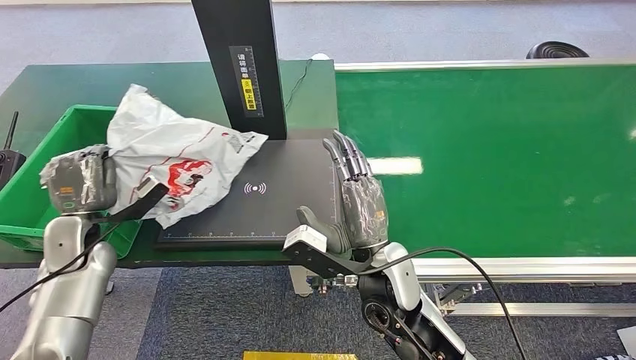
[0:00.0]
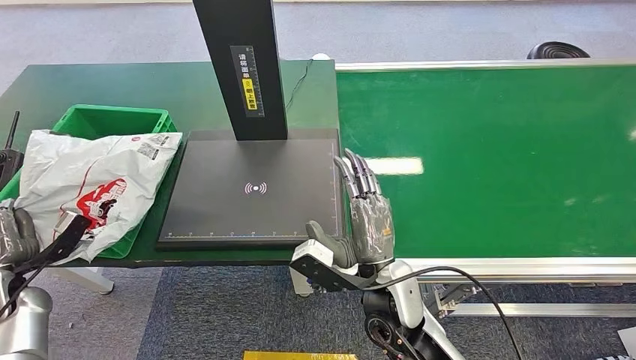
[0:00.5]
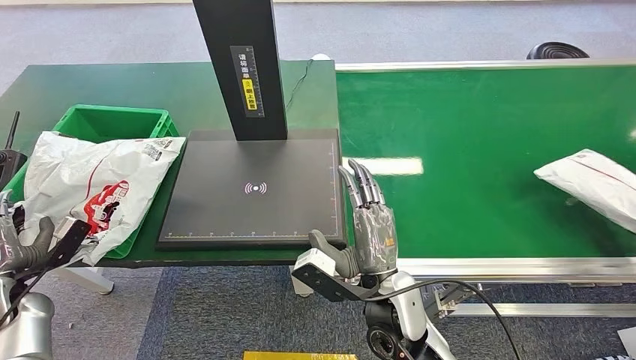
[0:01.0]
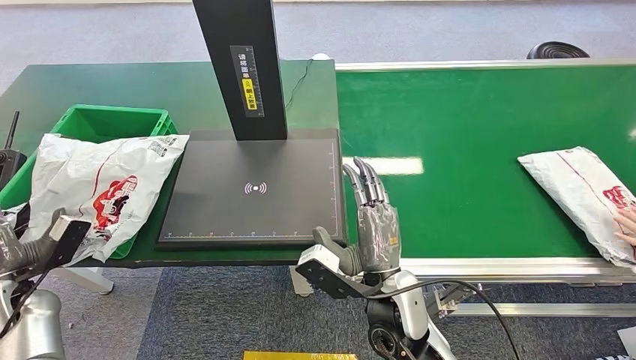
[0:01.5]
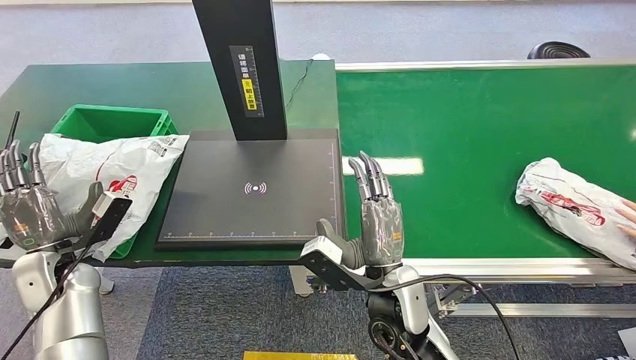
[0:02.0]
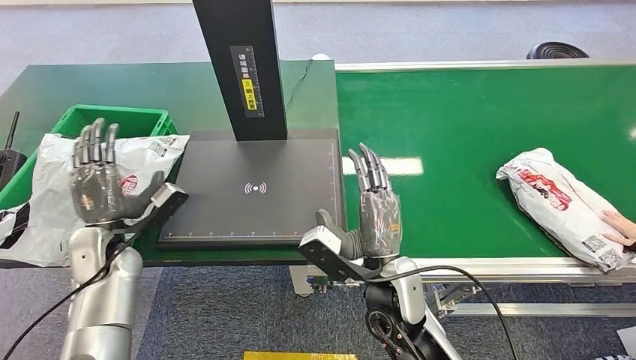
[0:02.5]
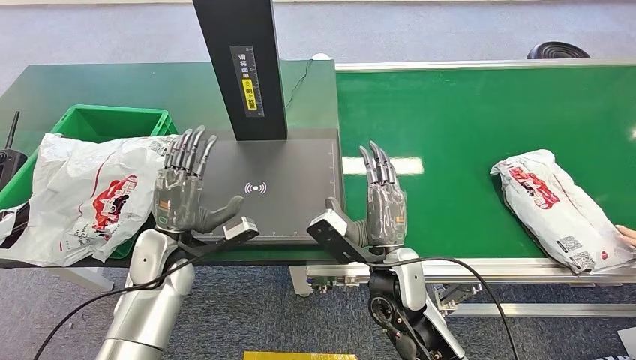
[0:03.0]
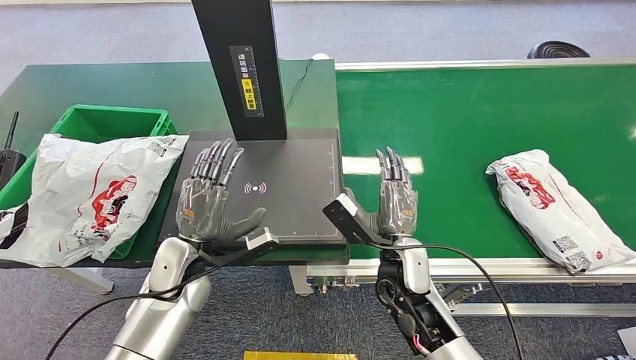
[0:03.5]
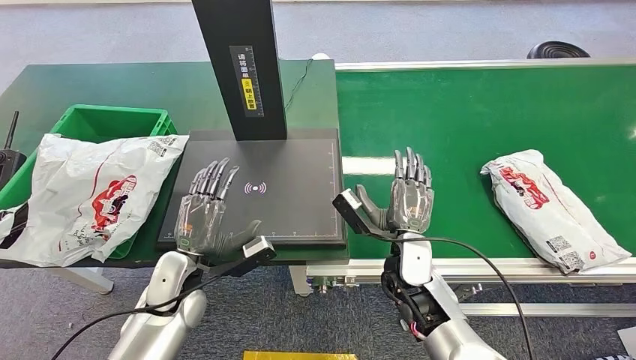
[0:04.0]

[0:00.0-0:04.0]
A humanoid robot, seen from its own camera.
Step, 0:00.0 to 0:04.0: Place the package into the parcel locker.

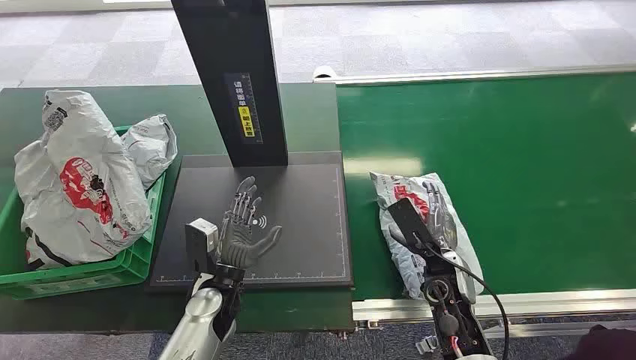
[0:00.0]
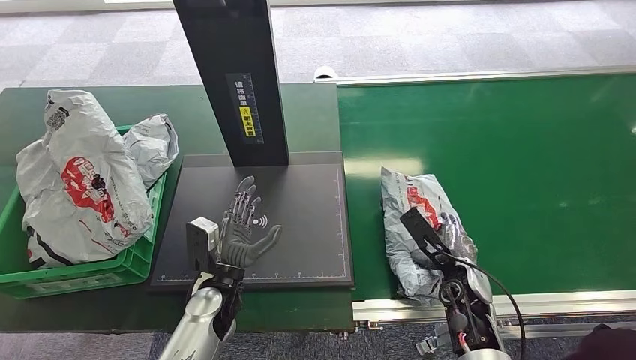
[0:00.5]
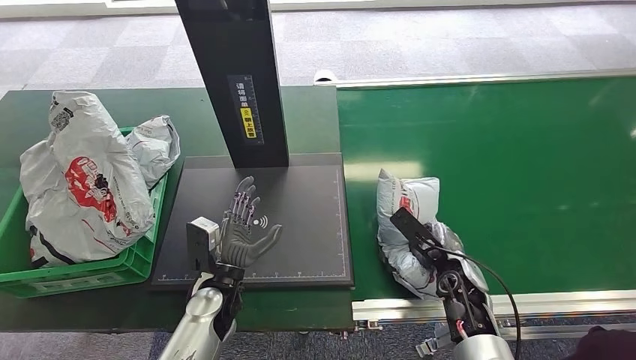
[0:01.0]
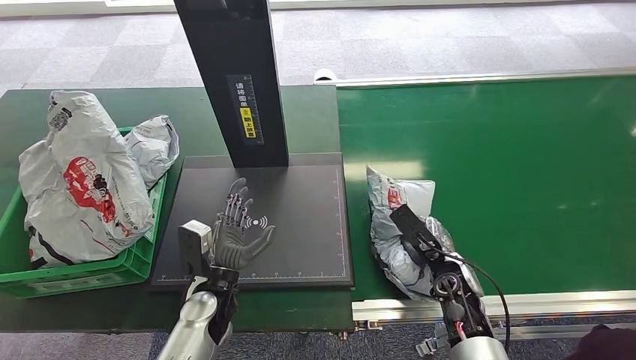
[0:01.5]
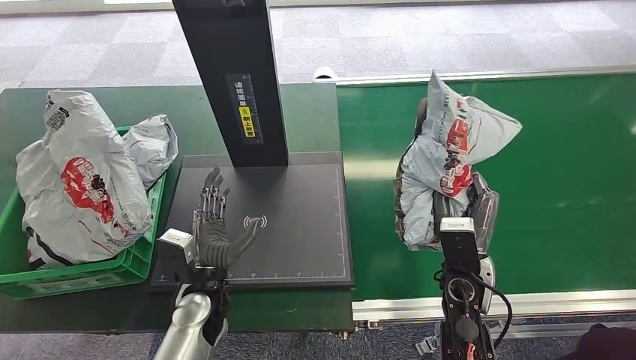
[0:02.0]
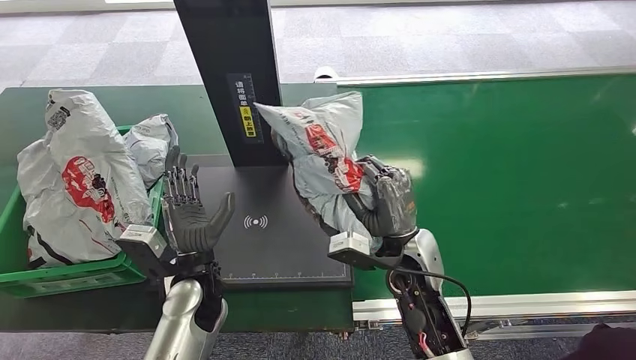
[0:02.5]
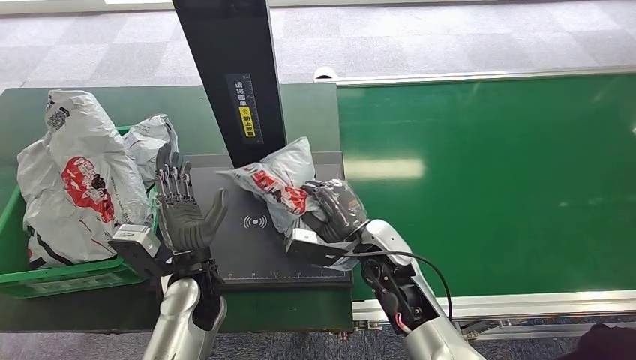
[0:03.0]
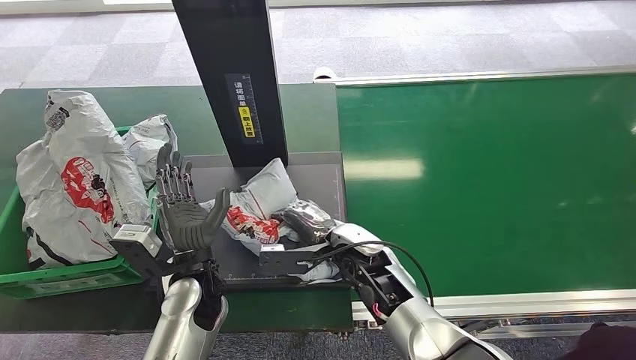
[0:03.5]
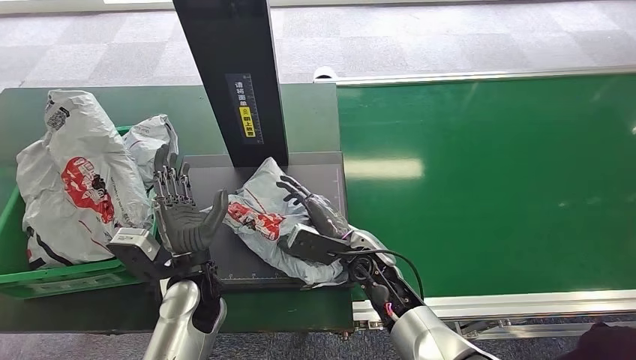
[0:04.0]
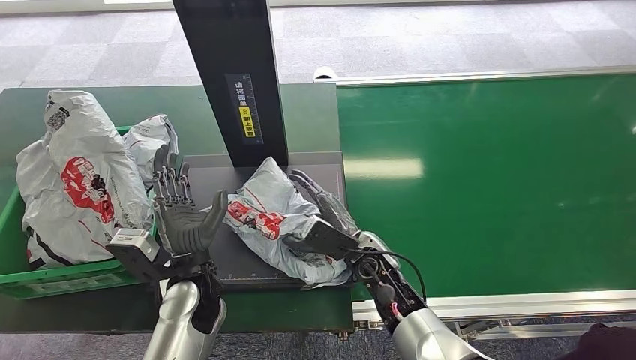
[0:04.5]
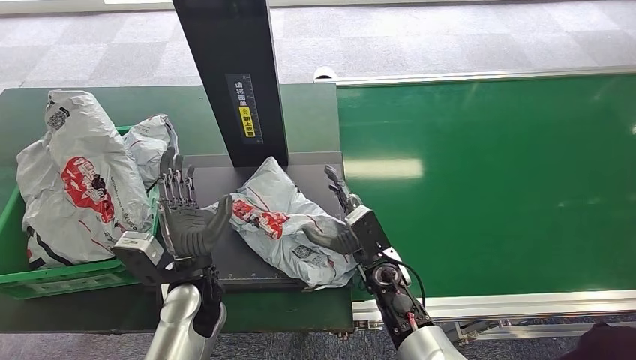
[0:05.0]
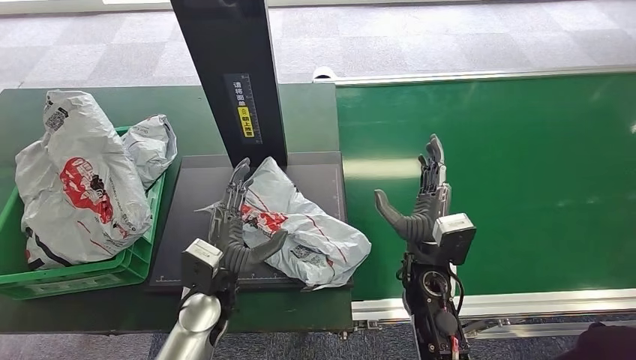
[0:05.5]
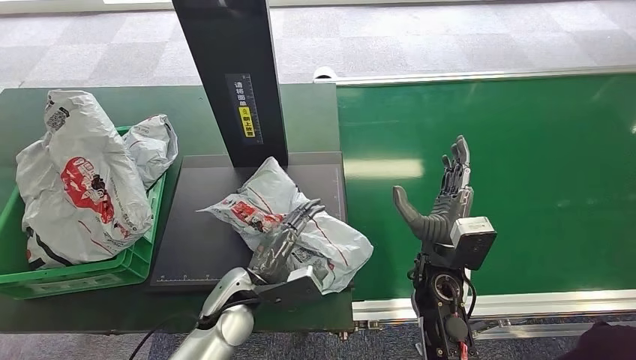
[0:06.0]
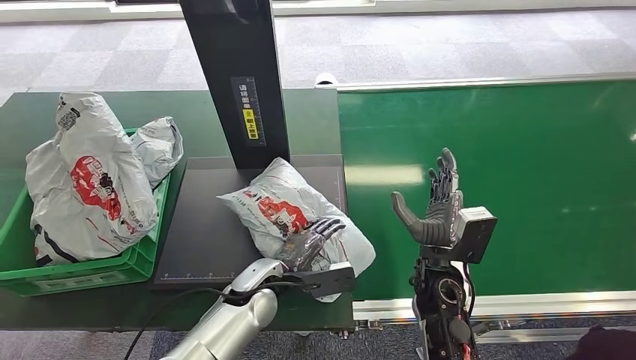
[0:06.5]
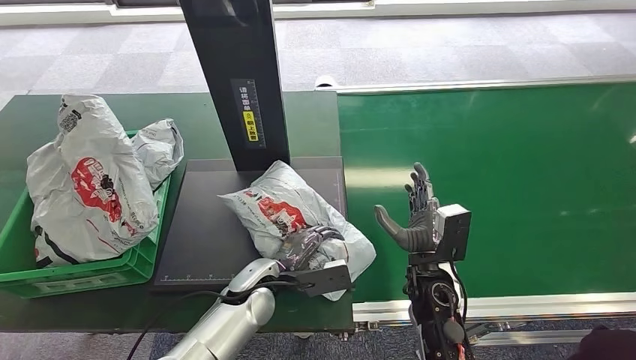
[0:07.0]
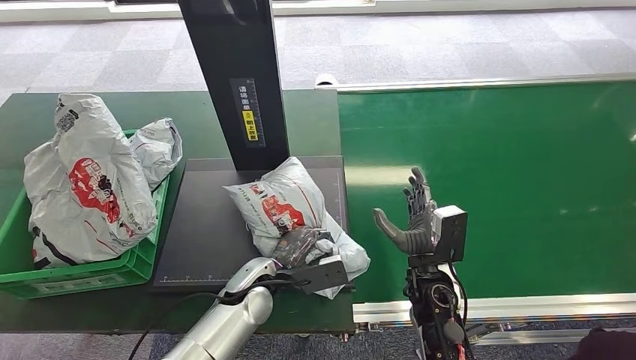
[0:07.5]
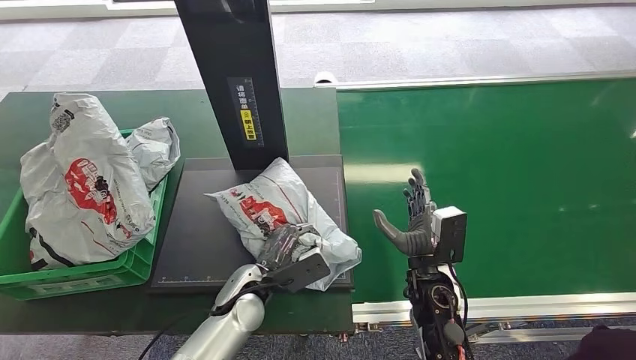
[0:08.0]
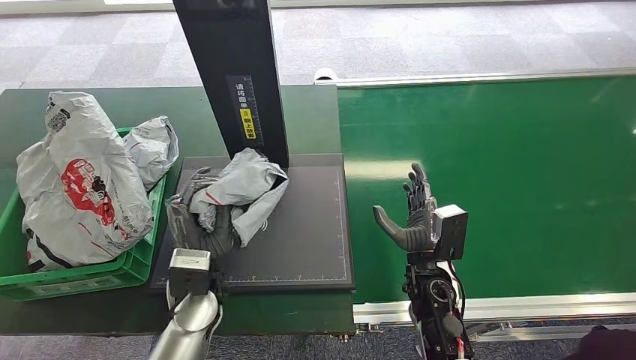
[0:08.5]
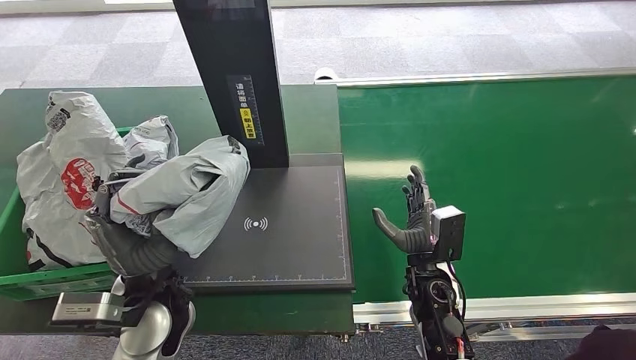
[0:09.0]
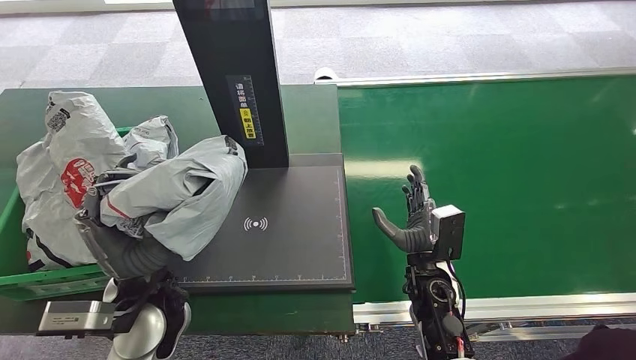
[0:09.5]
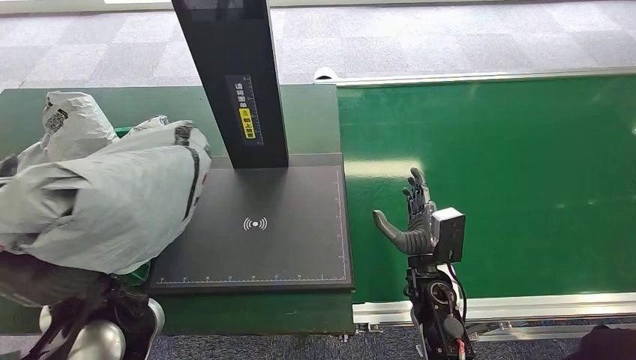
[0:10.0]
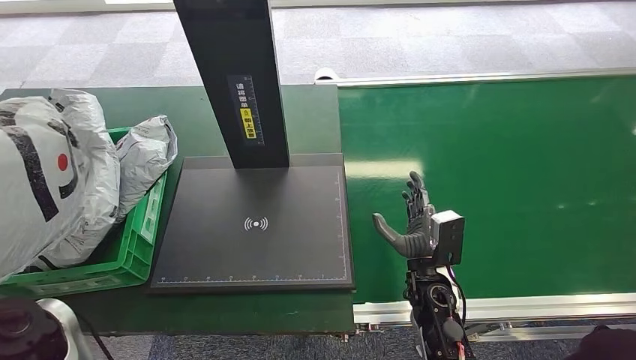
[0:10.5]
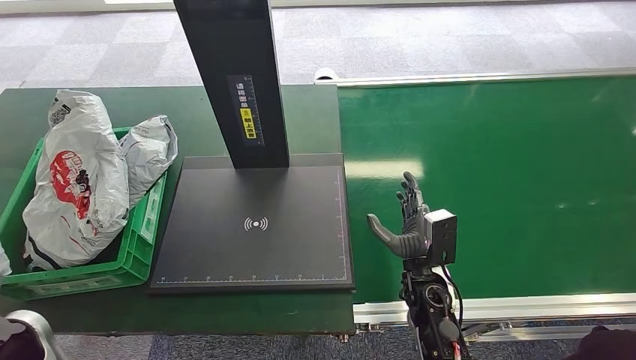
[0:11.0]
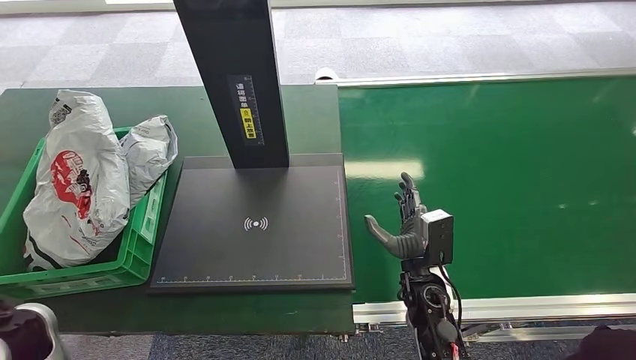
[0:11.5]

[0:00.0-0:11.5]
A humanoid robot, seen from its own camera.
Step, 0:00.0 to 0:02.5: Pick up the package from the conveyor belt.
Step, 0:03.0 to 0:04.5: Place the package onto the inbound machine.
Step, 0:06.0 to 0:08.5: Pick up the package from the inbound machine.
0:02.0 to 0:04.0: The right hand goes approximately 10 cm to the left.
0:04.0 to 0:06.0: The right hand is displaced to the right by some 10 cm; the left hand ends up roughly 5 cm from where it was.
0:09.5 to 0:11.5: The left hand is displaced to the left and upward by approximately 15 cm.

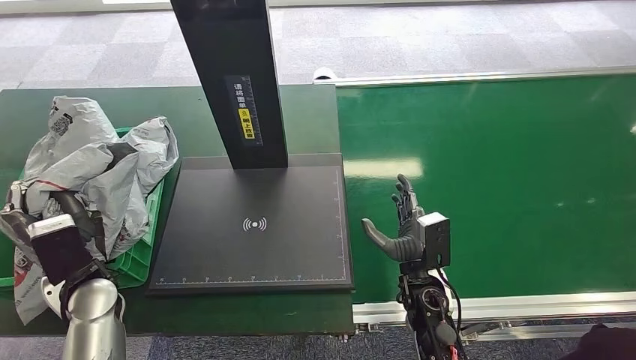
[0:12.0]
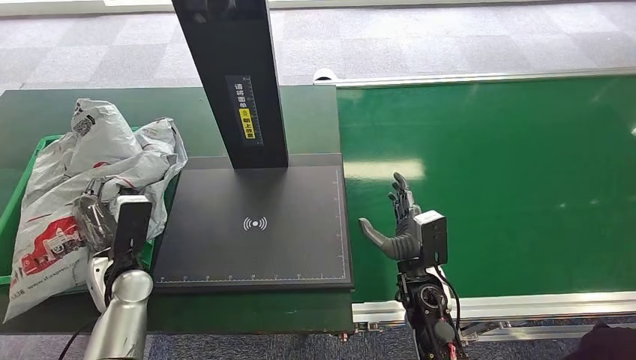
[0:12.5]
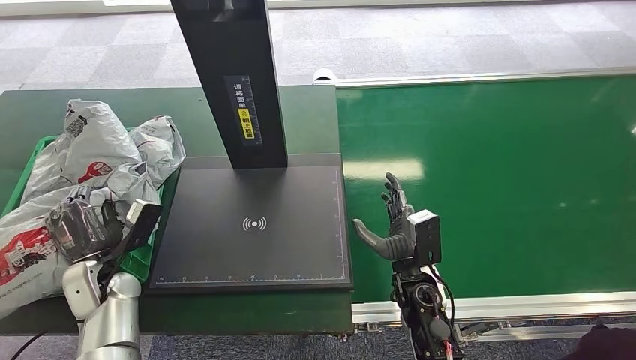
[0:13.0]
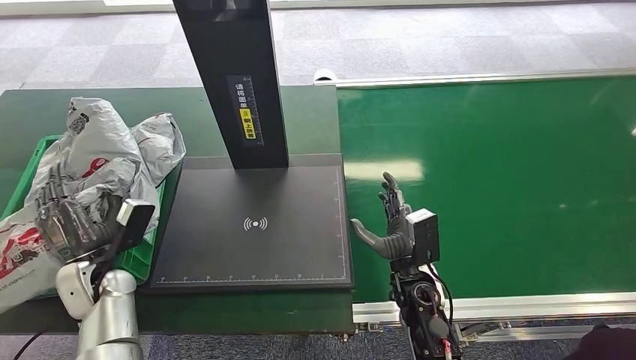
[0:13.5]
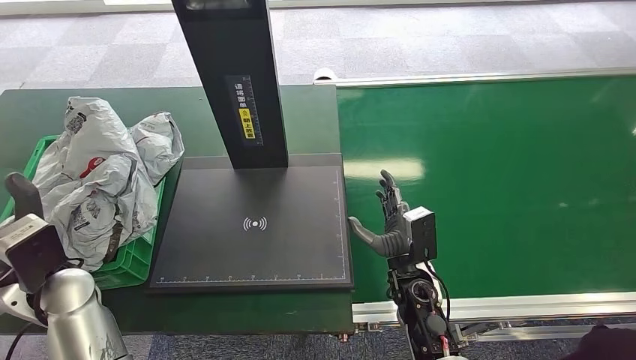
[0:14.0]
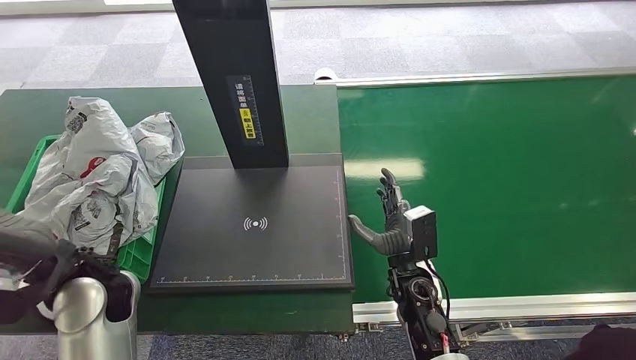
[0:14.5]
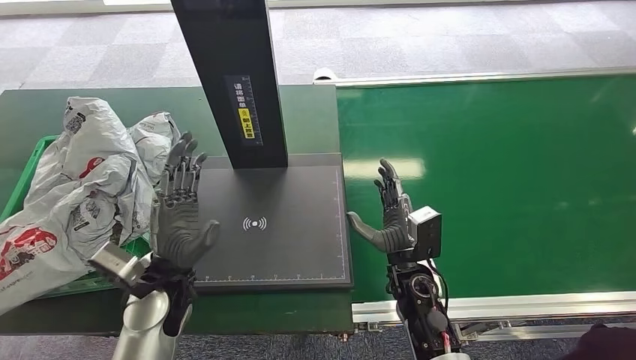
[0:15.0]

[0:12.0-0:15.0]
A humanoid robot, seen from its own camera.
Step, 0:12.0 to 0:15.0: Place the package into the parcel locker.
0:12.0 to 0:13.5: The left hand changes place by approximately 5 cm.
0:13.5 to 0:15.0: The left hand shifts roughly 15 cm to the right.

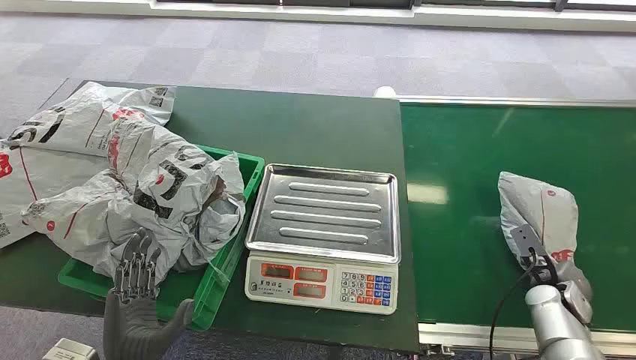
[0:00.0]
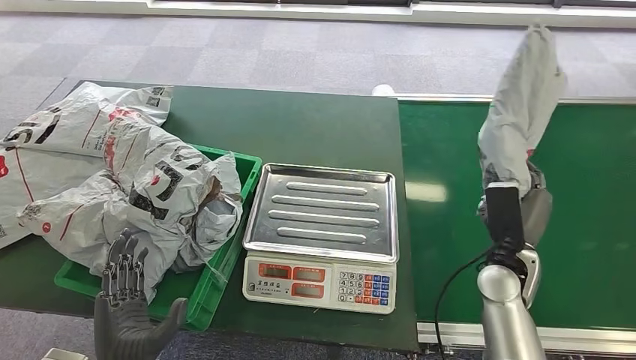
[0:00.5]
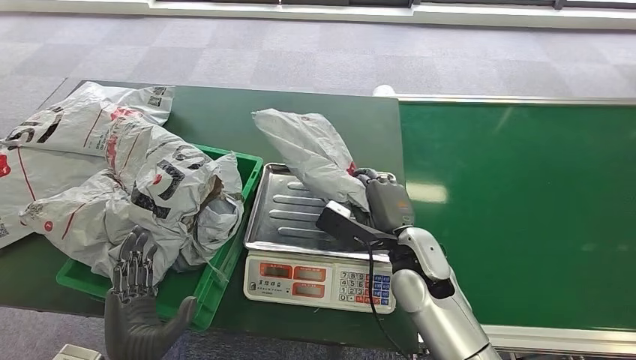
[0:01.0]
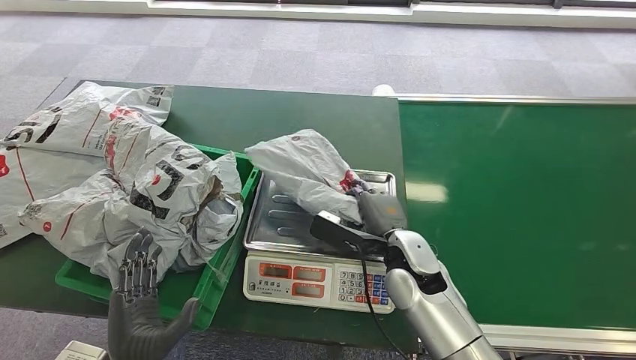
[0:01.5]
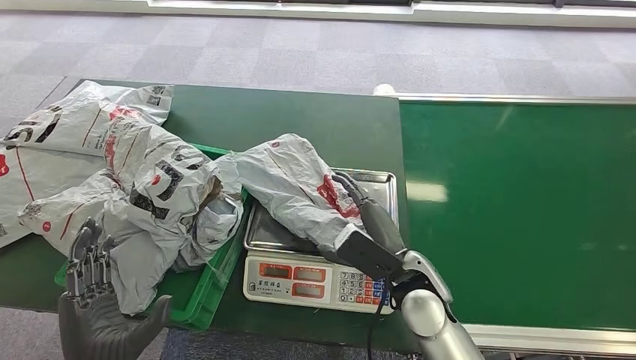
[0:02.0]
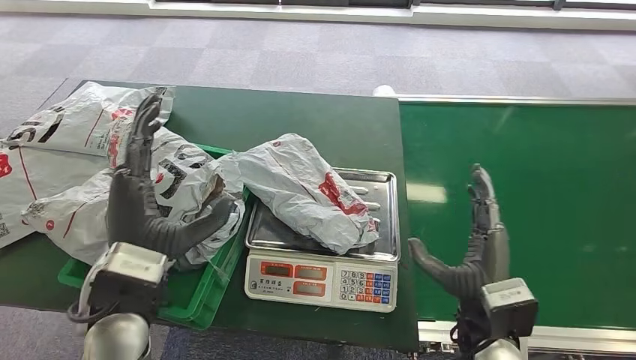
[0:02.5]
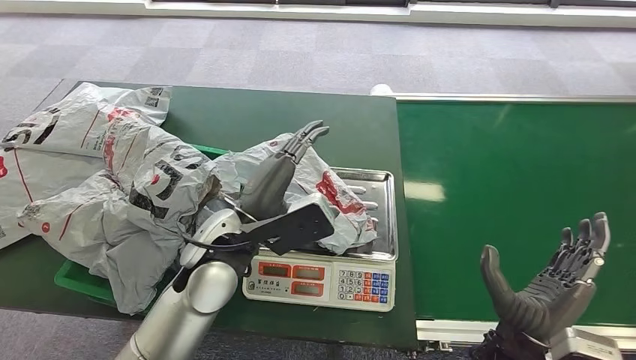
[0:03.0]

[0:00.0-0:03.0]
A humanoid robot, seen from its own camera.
Step, 0:00.0 to 0:00.5: Pick up the package from the conveyor belt.
Step, 0:01.0 to 0:02.0: Place the package onto the inbound machine.
